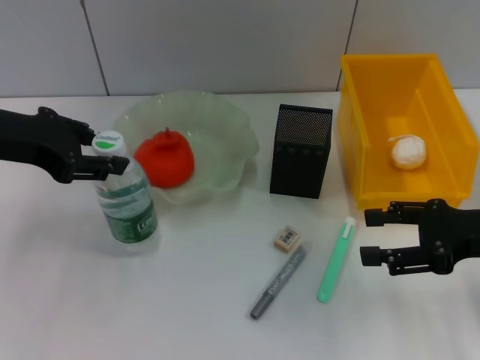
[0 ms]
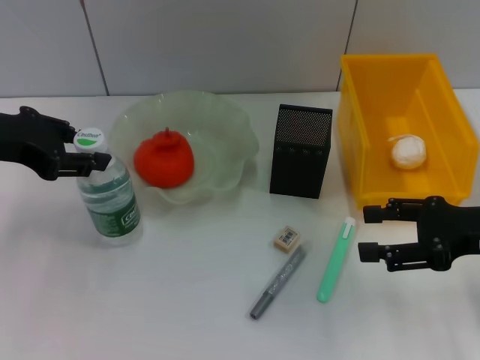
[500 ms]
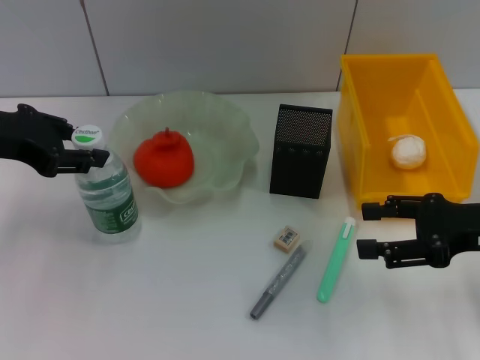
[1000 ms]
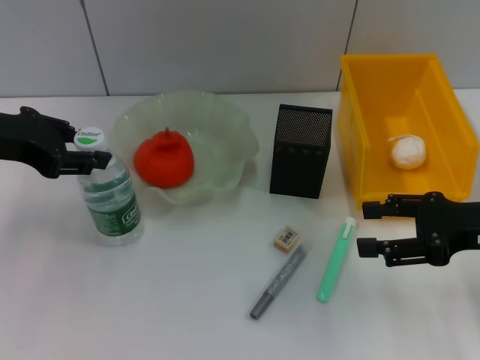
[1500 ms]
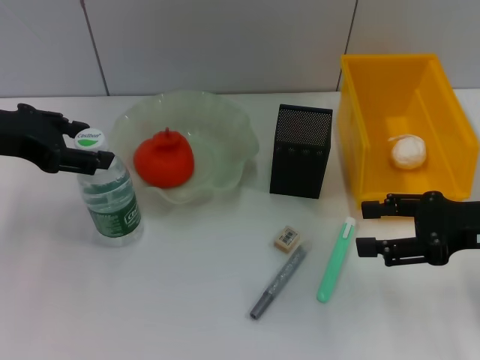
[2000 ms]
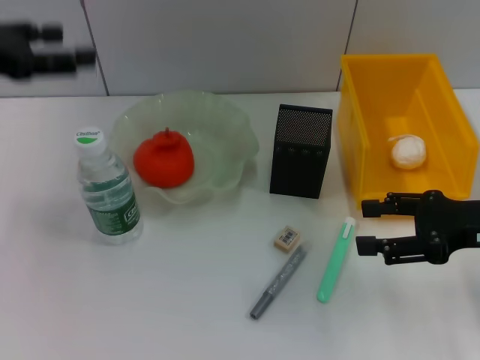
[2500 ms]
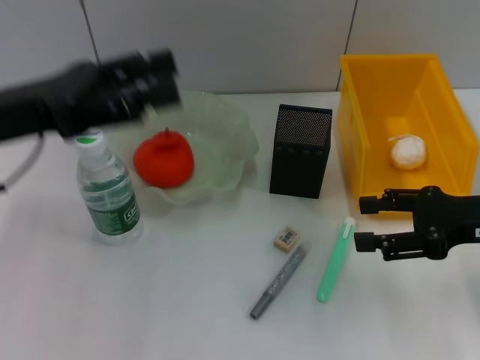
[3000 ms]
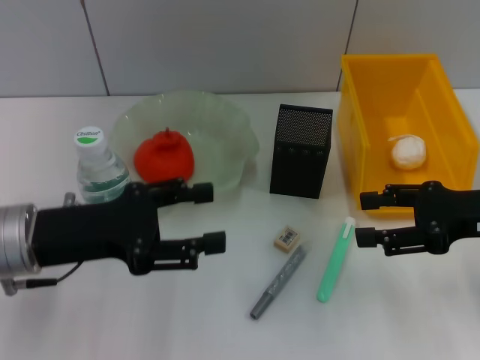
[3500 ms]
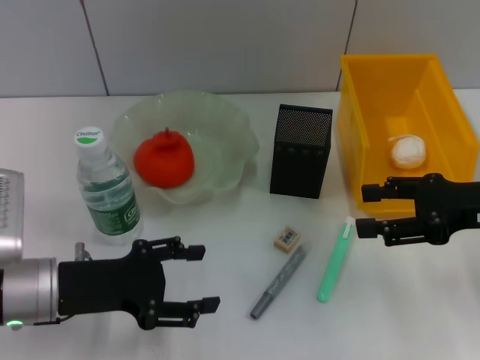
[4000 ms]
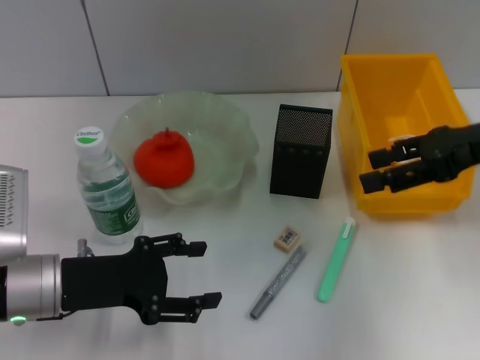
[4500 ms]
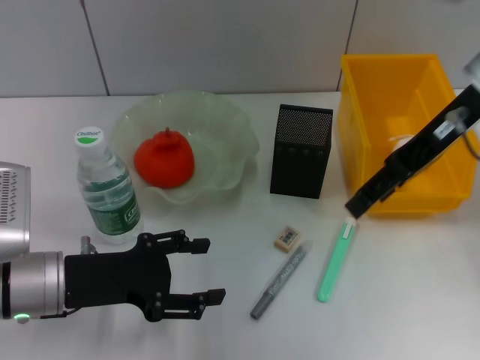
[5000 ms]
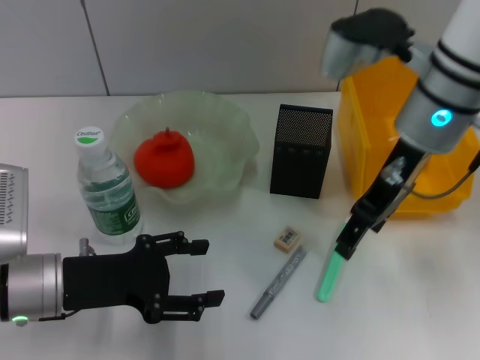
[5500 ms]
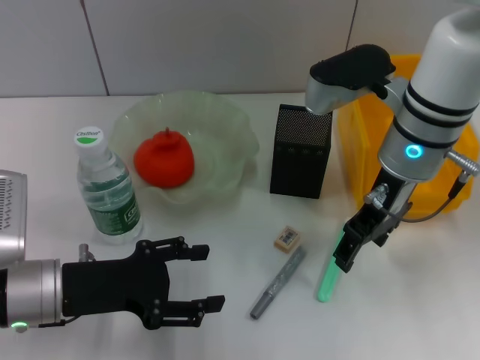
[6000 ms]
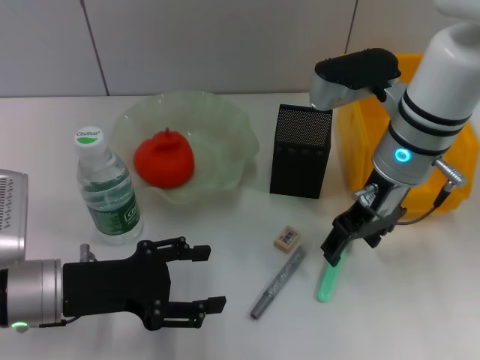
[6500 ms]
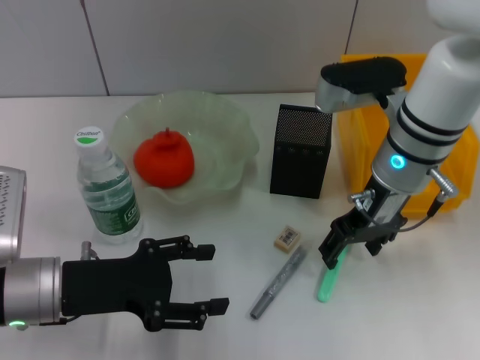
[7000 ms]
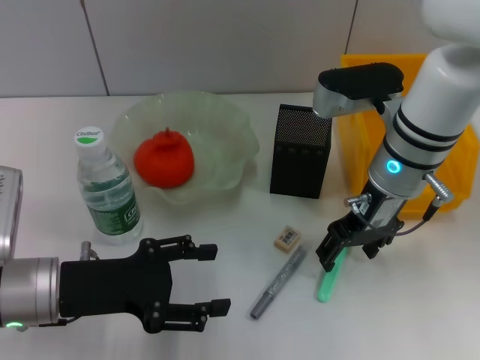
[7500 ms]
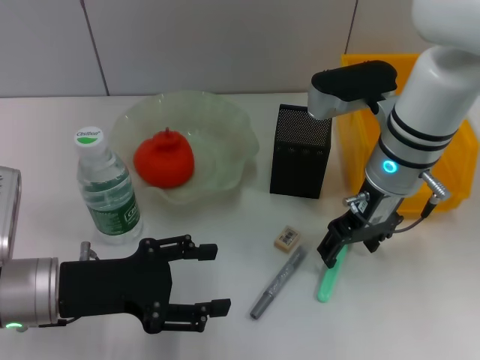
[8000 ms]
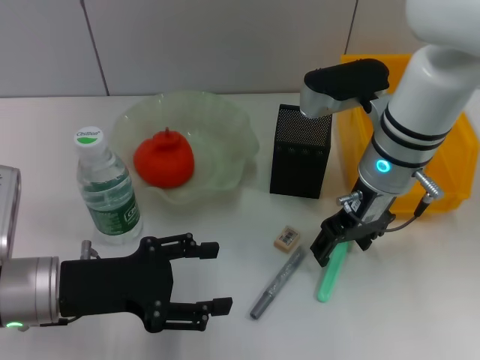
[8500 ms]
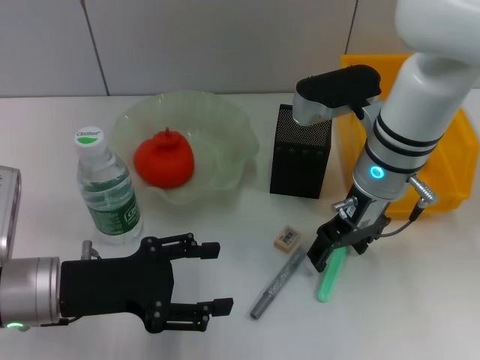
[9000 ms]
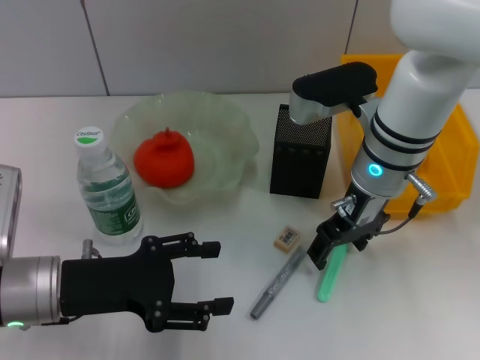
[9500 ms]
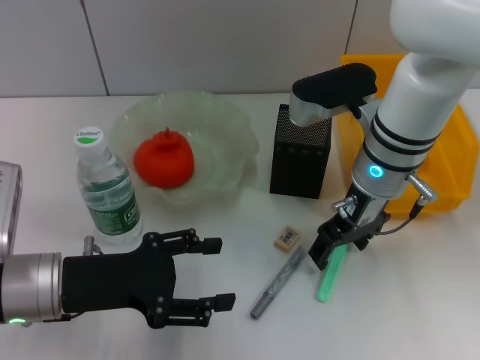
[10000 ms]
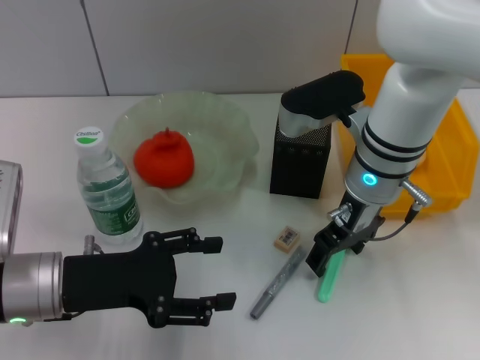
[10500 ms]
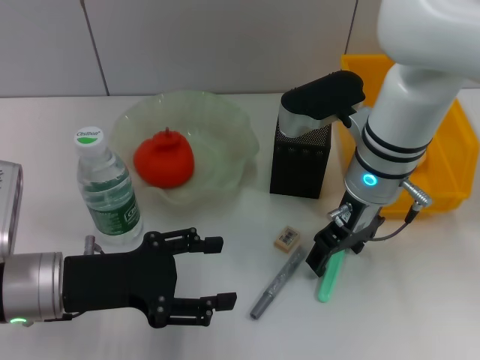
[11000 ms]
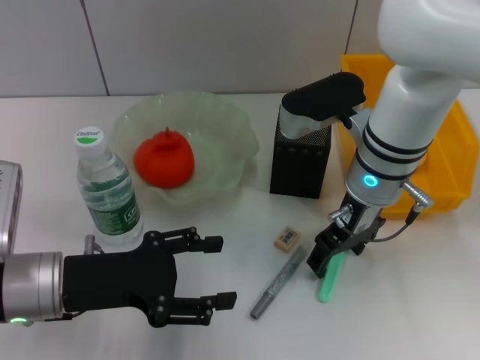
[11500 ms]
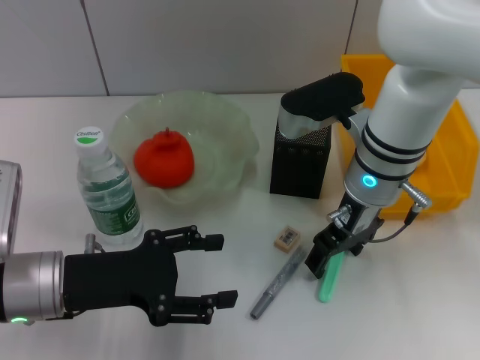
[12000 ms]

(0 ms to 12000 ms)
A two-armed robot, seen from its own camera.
Step, 0 ms - 2000 ms: Place the water bottle on the table with the left hand.
0 ms - 2000 ms: There are only small adjustments of the grippers.
2000 ms - 4000 ms: The left gripper is displaced downward and backward by about 15 cm, and opens up.
4000 ms - 6000 ms: The right gripper shifts about 15 cm to the left and forward.
6000 ms - 10000 ms: The grippers move only a little.
10000 ms - 12000 ms: Both grippers stay about where they are.

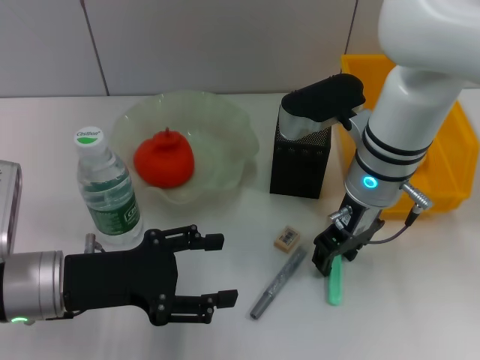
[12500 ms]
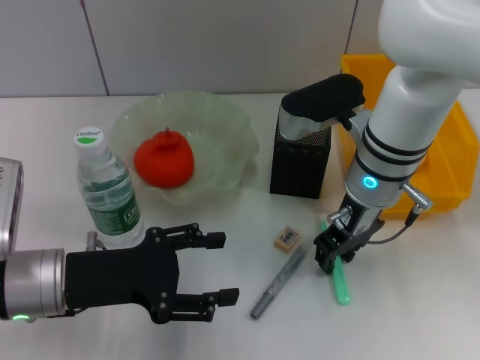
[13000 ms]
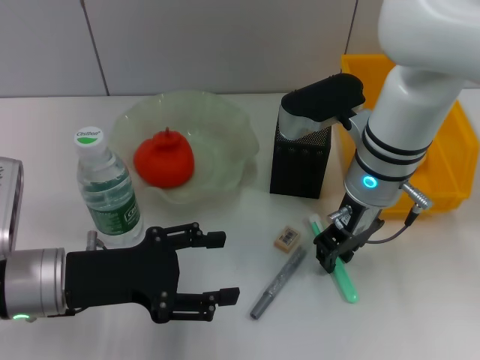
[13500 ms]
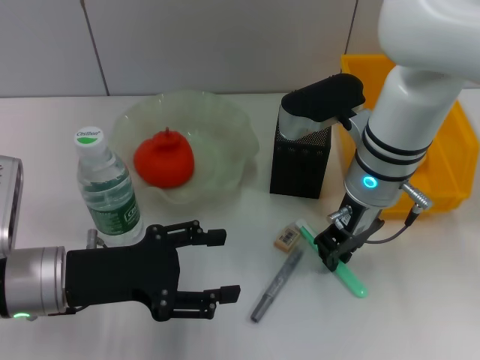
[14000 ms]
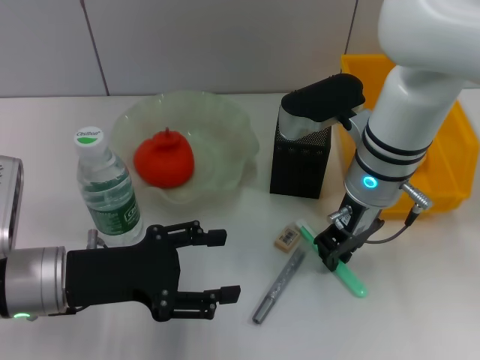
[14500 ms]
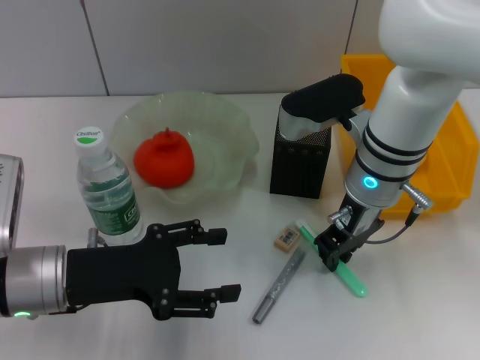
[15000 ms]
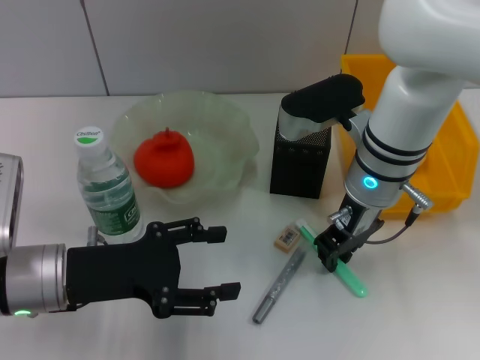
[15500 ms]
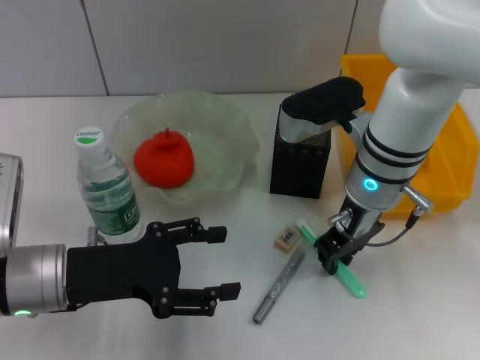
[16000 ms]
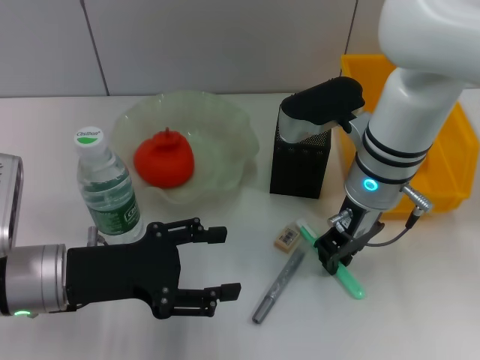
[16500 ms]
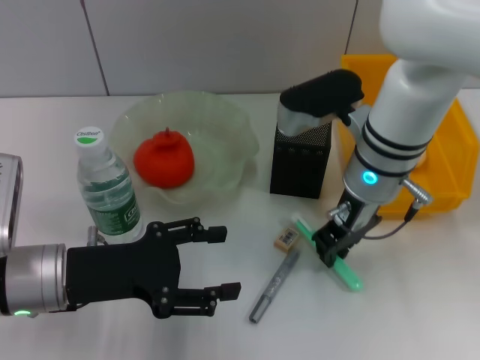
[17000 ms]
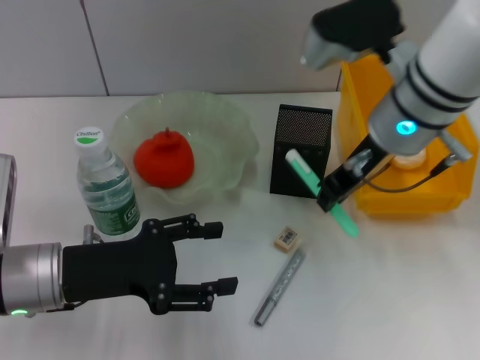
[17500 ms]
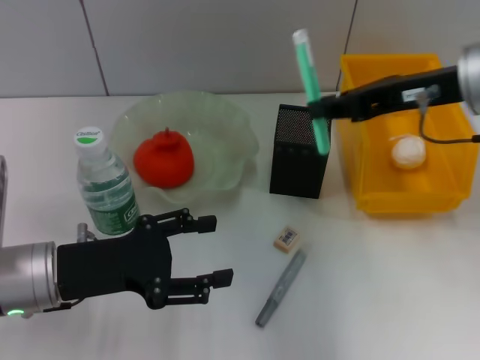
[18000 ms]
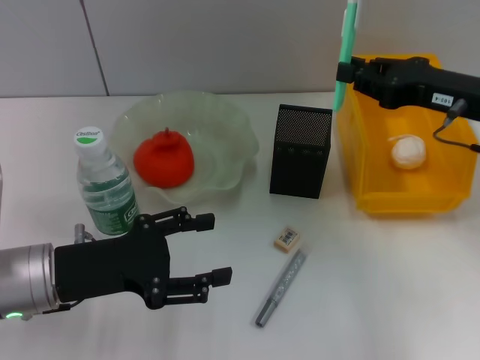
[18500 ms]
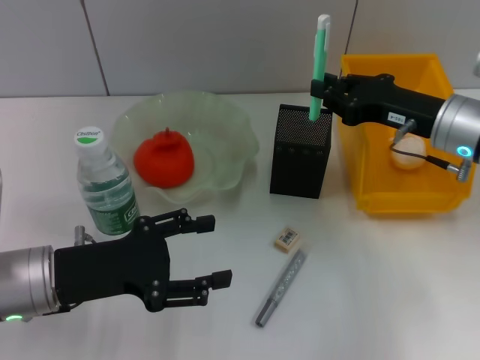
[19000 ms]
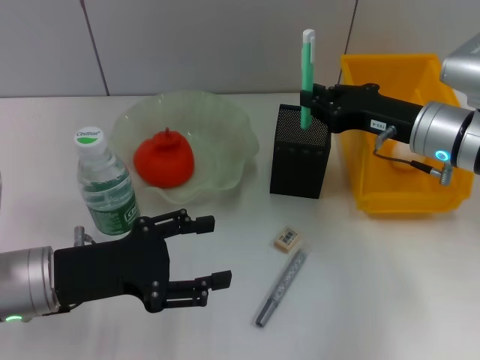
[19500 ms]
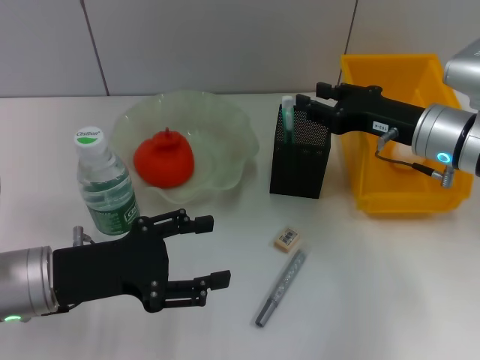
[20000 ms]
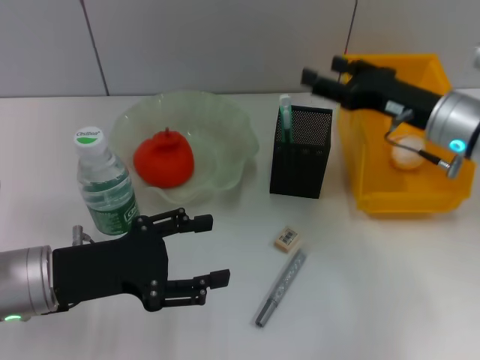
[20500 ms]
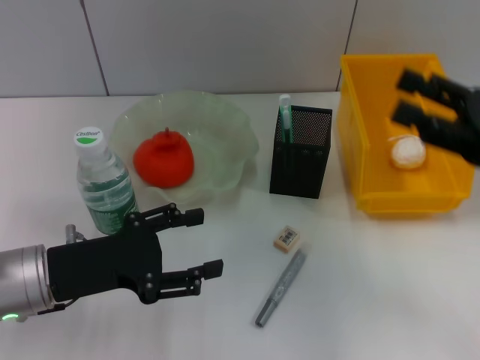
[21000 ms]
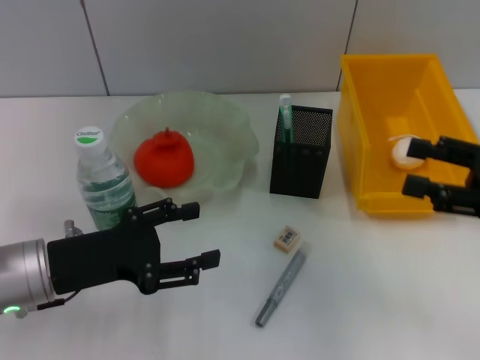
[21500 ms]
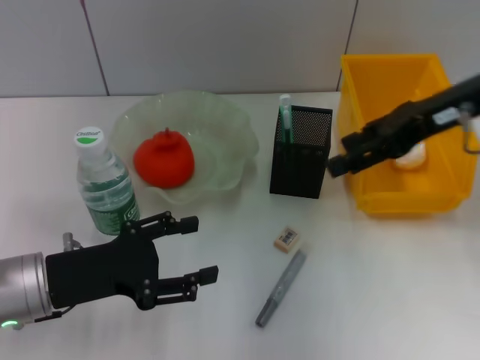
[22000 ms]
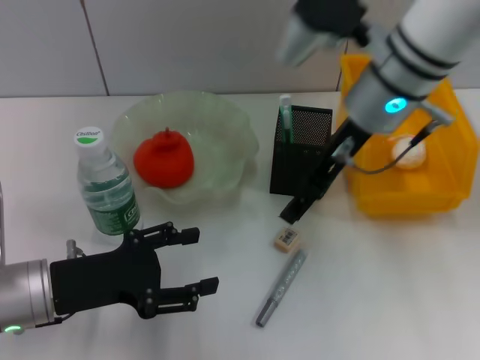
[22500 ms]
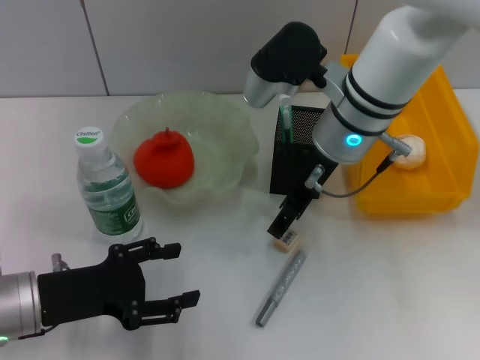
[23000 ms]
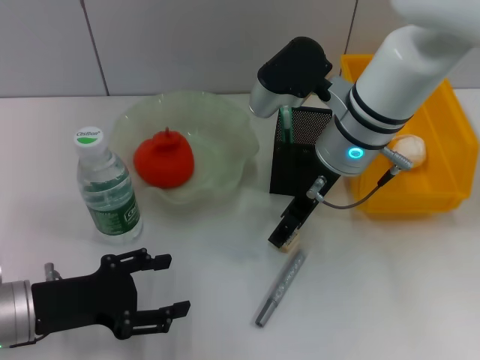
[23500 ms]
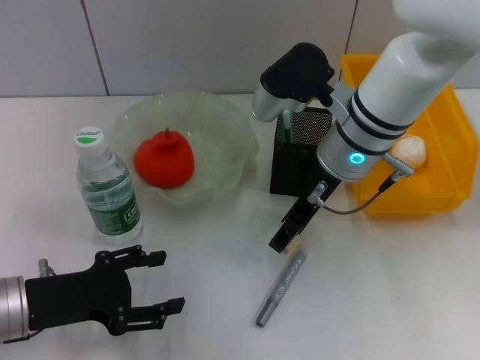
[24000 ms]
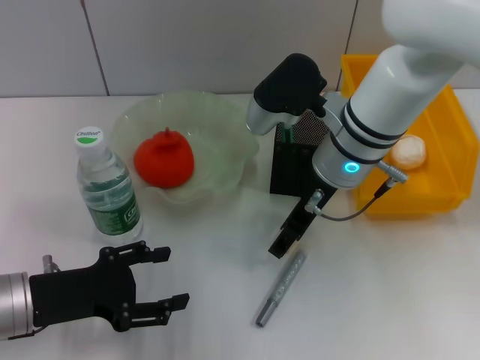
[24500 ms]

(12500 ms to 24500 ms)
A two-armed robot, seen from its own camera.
Step, 12500 ms - 16500 ms: Grab the blue utility knife with the right hand.
Step, 17000 ms - 19500 ms: Place the blue utility knife into the pen holder with the right hand.
12500 ms - 14500 ms: The right gripper closes its fingers.
14500 ms - 16500 ms: The two grippers keep their place.
16500 ms - 18500 ms: The right gripper heads to the right, covering roughly 15 cm.
18500 ms - 20500 ms: The right gripper moves about 5 cm, and opens up.
20500 ms - 22500 ms: The right gripper is displaced to the left and upward by some 15 cm.
22500 ms - 24500 ms: The right gripper goes some 5 cm downward.

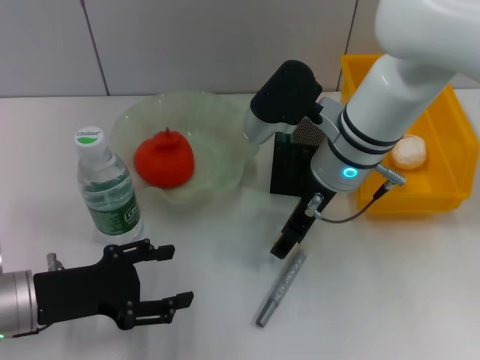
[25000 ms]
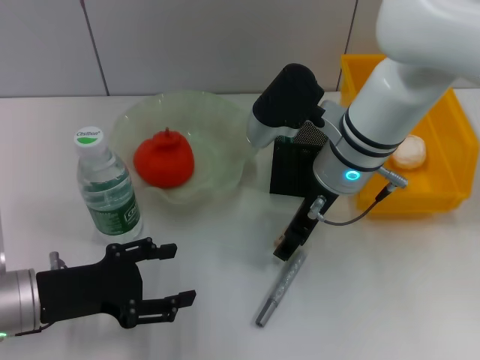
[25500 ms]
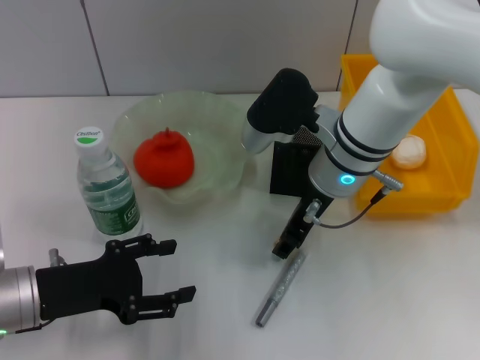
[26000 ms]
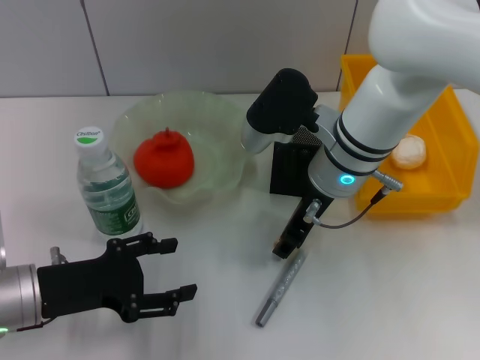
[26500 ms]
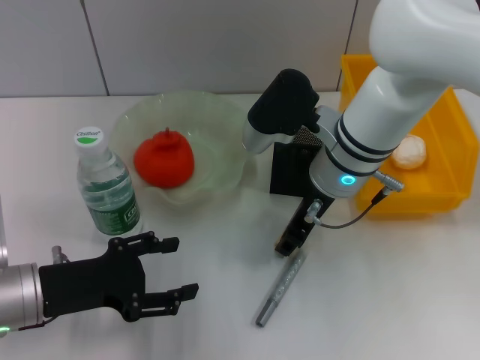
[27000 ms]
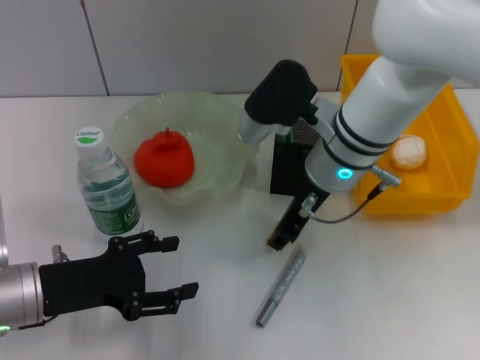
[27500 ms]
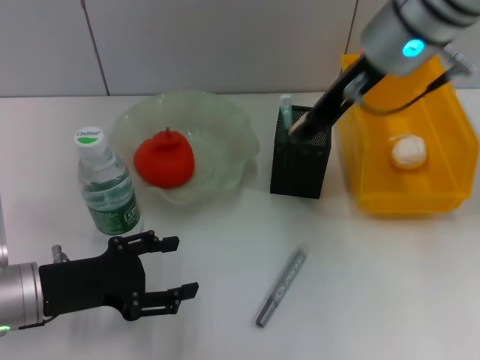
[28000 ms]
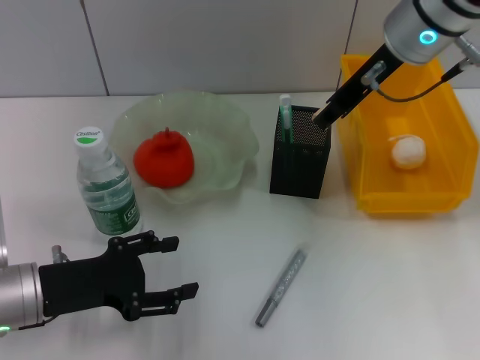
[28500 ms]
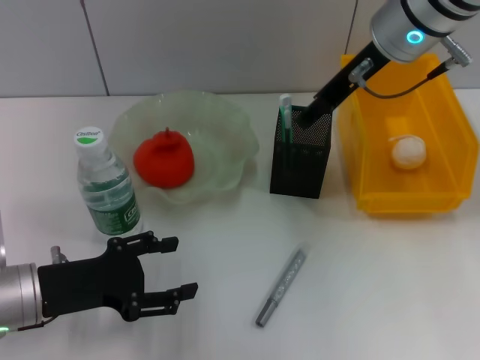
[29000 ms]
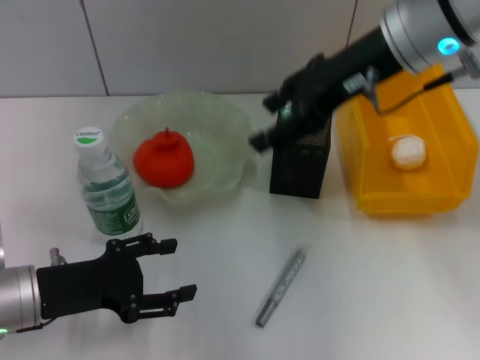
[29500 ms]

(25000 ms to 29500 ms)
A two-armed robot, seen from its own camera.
25000 ms - 27000 ms: The right gripper closes its fingers.
27000 ms - 29500 ms: The right gripper is displaced upward by roughly 15 cm, and opens.
